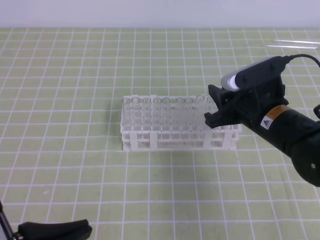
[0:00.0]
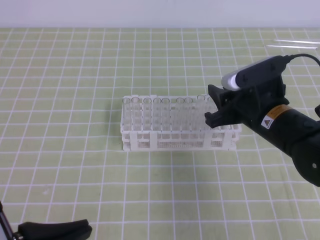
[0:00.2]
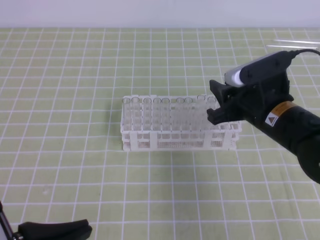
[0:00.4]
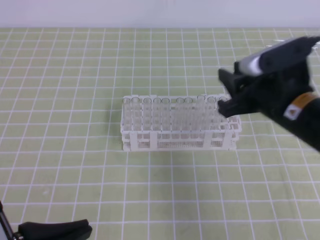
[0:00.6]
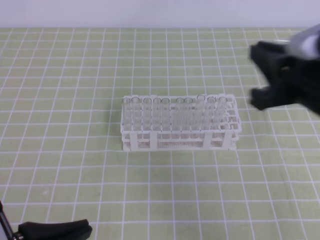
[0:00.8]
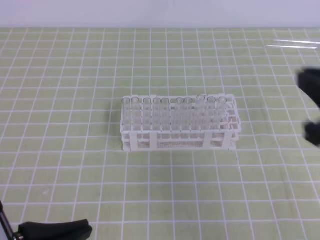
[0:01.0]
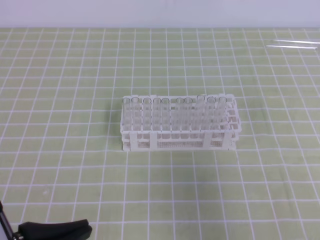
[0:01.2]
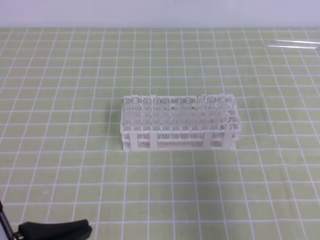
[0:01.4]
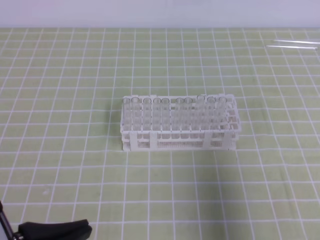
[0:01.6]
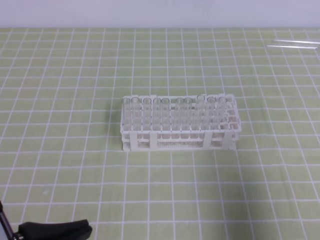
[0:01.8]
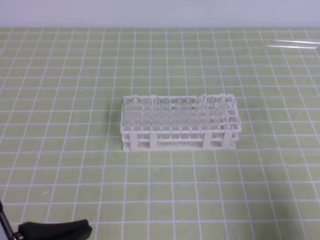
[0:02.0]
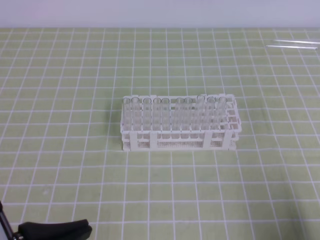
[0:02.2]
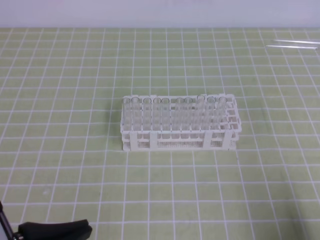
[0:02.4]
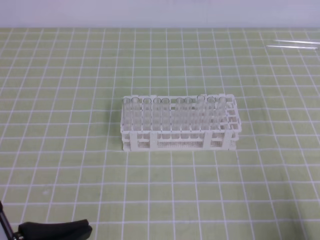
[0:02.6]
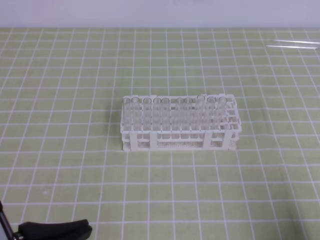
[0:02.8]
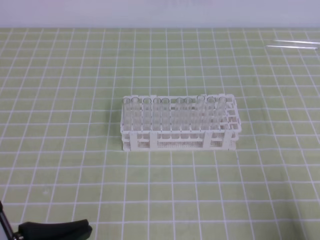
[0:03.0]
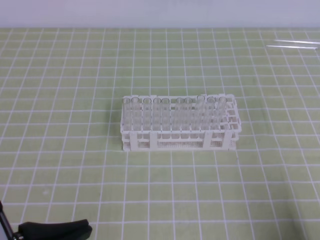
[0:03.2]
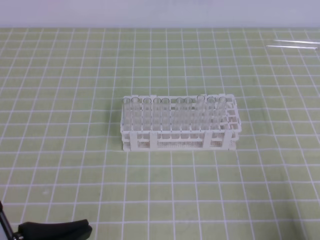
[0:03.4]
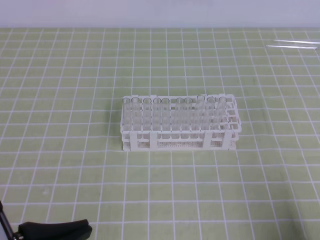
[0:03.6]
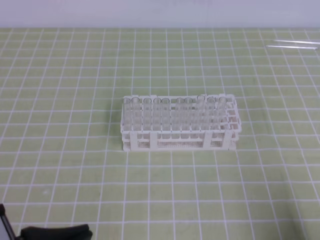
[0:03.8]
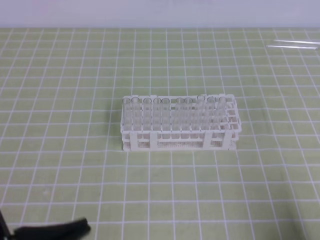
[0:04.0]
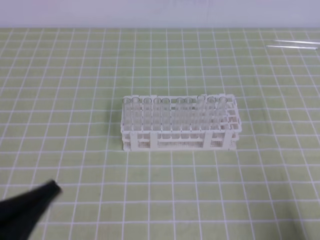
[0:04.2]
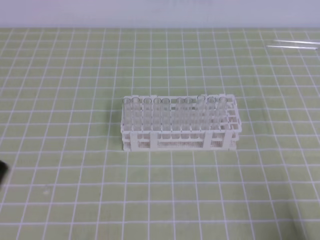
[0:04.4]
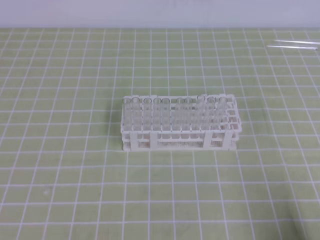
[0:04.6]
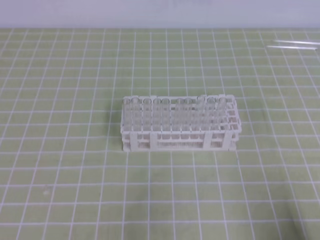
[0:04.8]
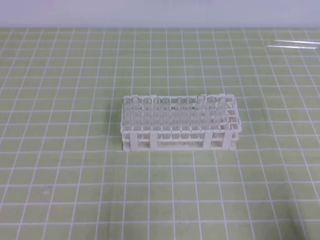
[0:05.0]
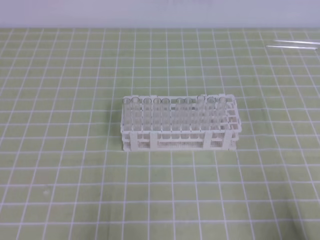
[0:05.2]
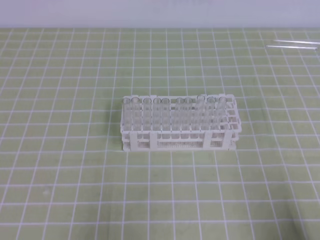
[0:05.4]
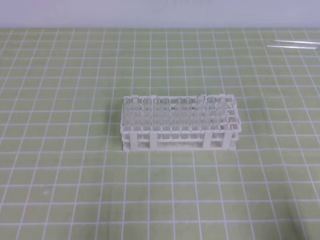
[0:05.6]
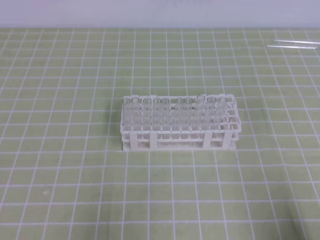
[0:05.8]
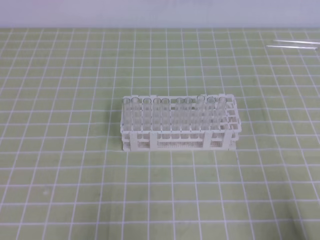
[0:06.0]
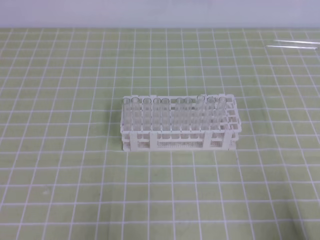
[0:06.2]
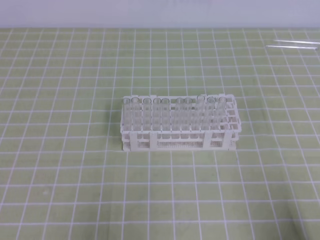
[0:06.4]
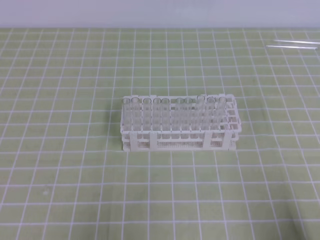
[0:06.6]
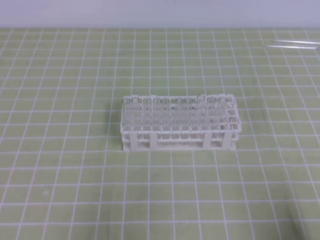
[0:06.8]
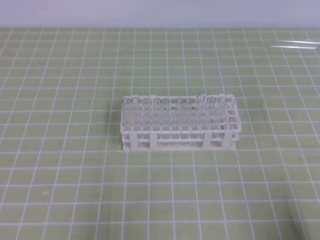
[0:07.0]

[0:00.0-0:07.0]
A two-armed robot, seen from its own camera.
0:00.0 to 0:01.4: The right gripper travels backward, to the right and upward by roughly 25 cm, and closes up.
0:01.4 to 0:02.8: The right gripper shifts roughly 20 cm downward and backward.
0:04.2 to 0:05.6: The left gripper moves downward and to the left, about 10 cm.
0:05.6 to 0:07.0: Both grippers stay about where they are.
